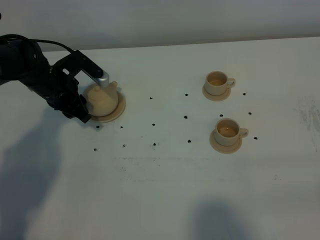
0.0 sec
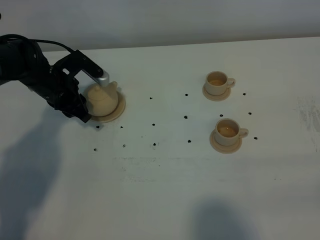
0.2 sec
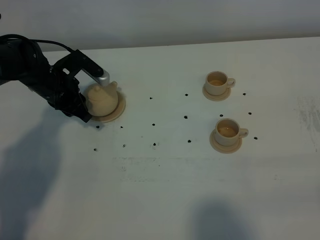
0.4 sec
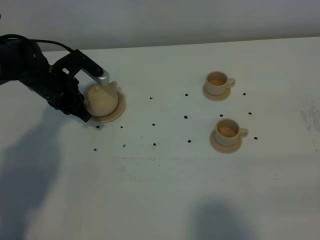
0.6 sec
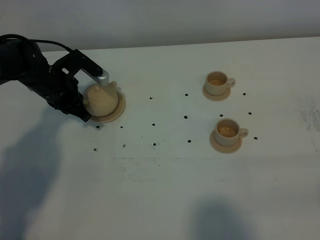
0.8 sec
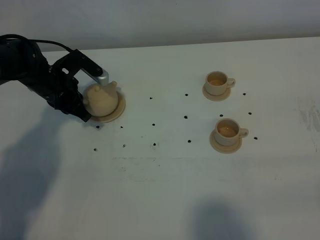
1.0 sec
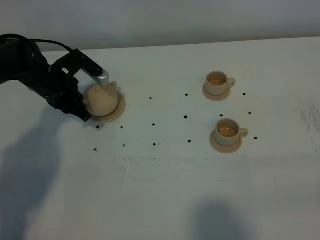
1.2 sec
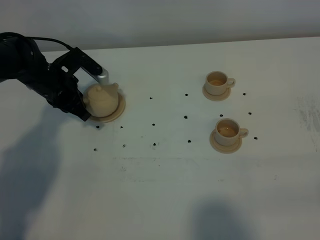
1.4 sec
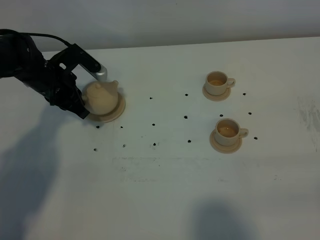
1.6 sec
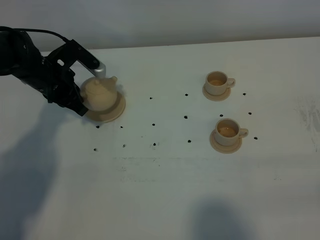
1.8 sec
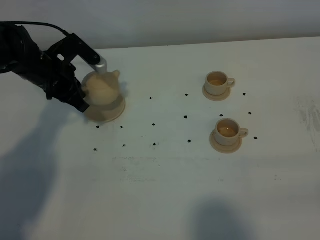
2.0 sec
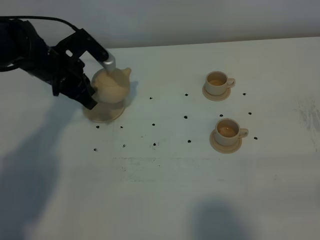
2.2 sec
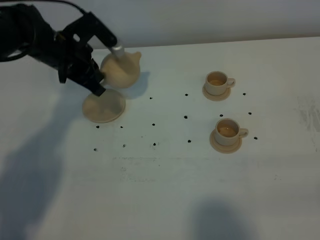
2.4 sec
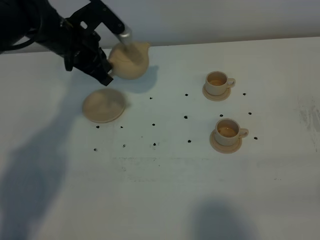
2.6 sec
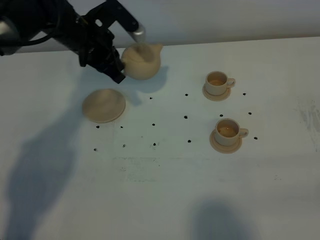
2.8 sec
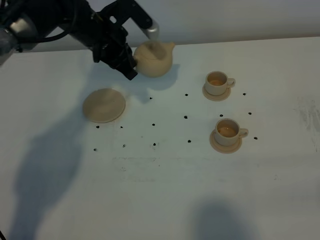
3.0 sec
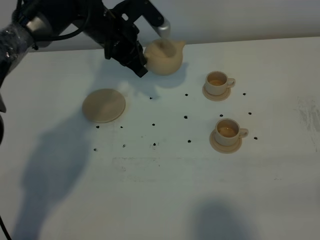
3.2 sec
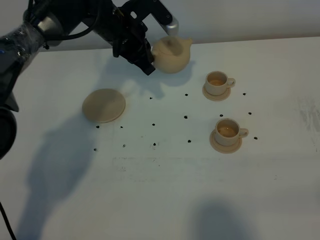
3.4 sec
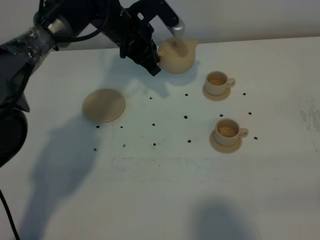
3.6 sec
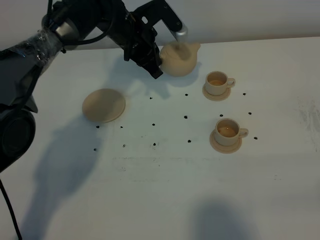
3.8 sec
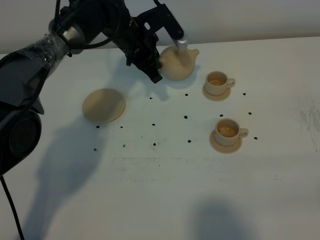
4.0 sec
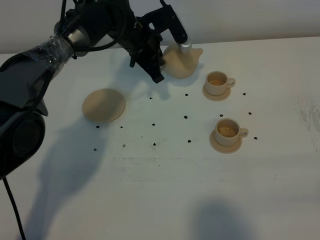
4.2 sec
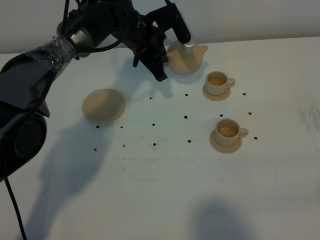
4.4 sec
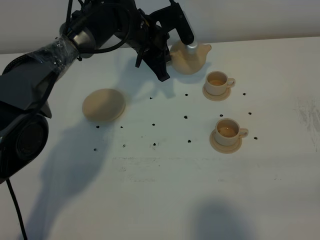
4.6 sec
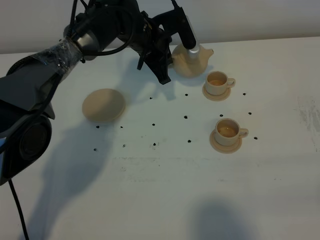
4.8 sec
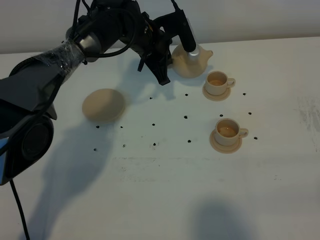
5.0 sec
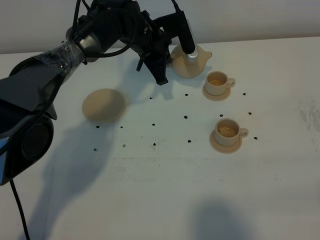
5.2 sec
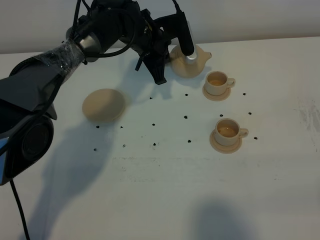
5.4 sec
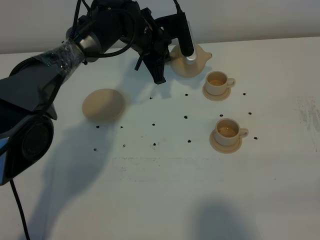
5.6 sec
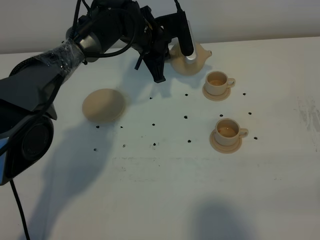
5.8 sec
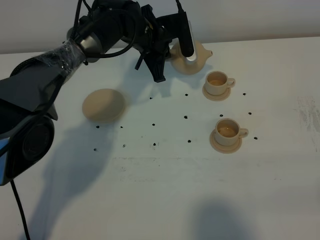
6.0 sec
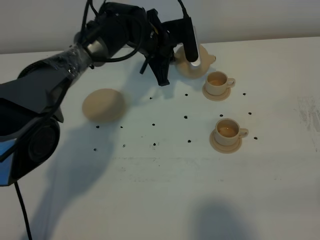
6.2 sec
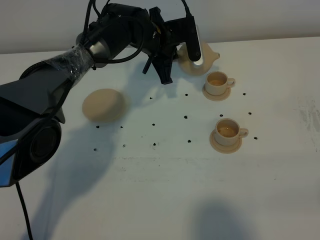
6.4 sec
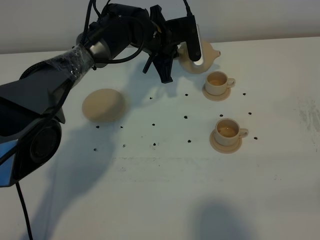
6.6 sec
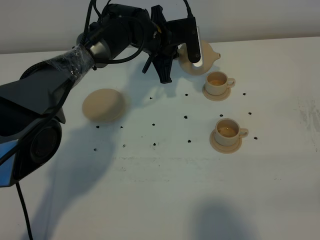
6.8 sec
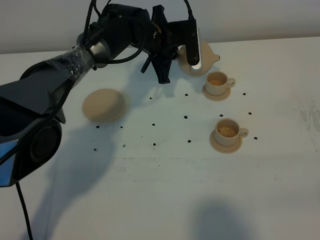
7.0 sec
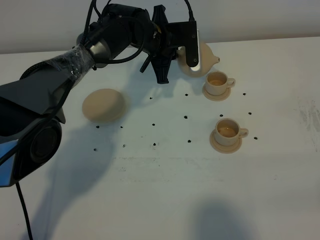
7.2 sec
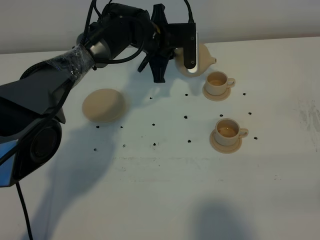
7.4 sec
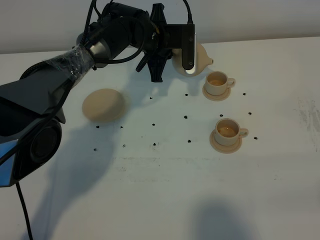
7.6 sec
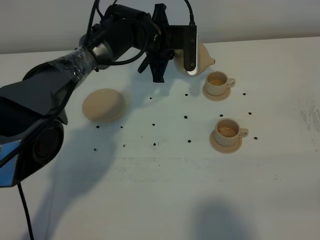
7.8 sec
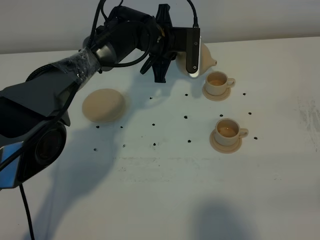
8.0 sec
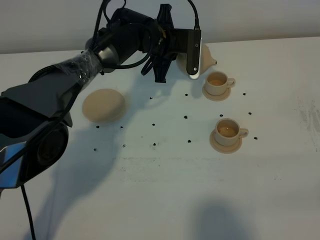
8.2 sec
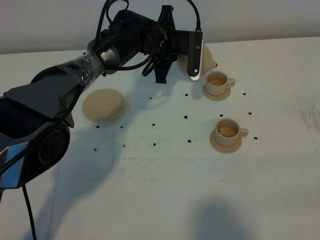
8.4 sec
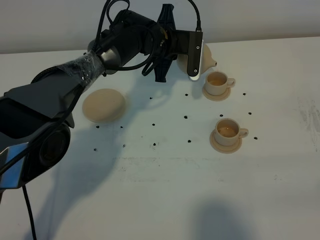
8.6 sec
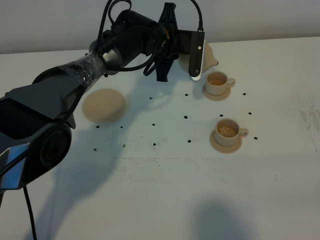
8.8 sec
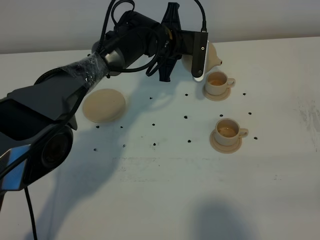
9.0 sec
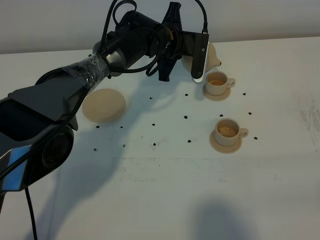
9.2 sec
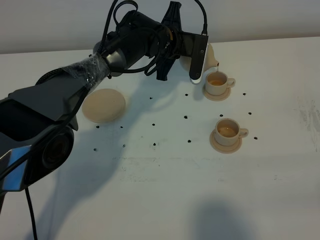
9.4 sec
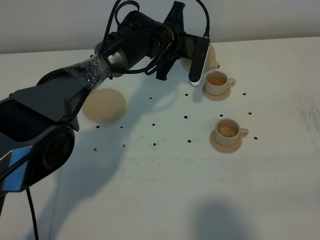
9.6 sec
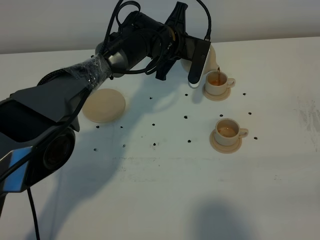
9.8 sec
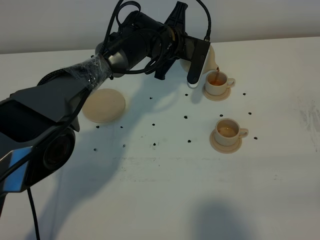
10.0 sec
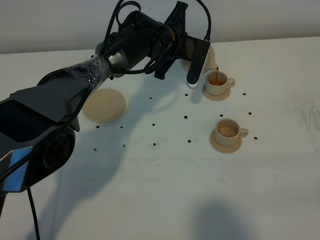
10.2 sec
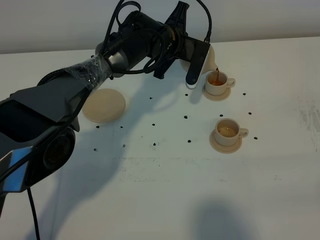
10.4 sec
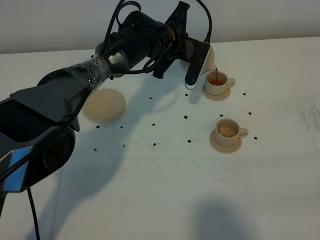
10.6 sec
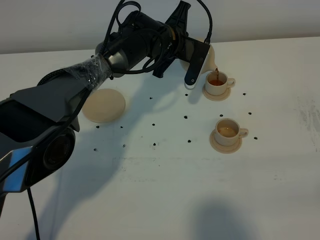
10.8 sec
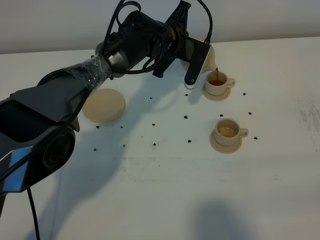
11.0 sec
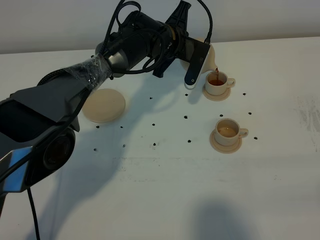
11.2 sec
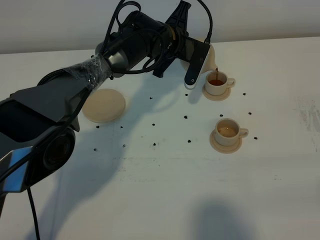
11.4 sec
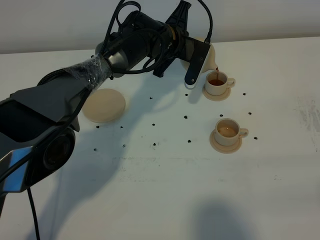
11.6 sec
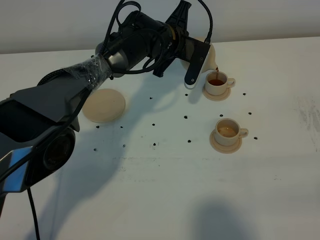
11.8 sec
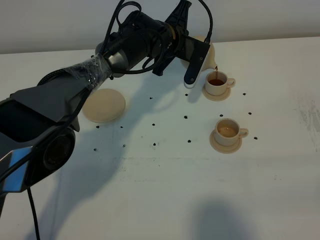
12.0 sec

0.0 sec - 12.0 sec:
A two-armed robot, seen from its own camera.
Task of the whole recording: grasp the brown teapot and pour the tea into the two brown teacups one by one, put the brown teapot back in its original place.
0.0 sec - 1.6 sec: The left gripper closes up.
1.6 sec - 3.0 sec: The left gripper moves to the right and upward, roughly 15 cm.
3.0 sec - 4.4 sec: The left gripper heads to the right, covering about 5 cm.
4.4 sec - 6.0 sec: There are only small adjustments of the grippers.
6.0 sec - 7.6 sec: The grippers make only small movements.
7.6 sec - 9.0 sec: The grippers stay close to where they were, moving slightly.
9.0 sec - 10.4 sec: The grippers move only a little.
10.4 sec - 12.0 sec: Both grippers stay put.

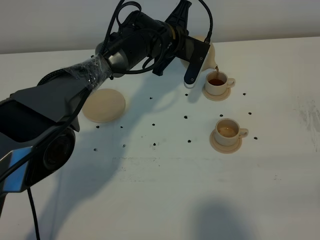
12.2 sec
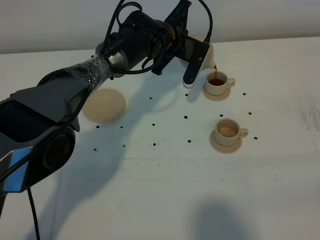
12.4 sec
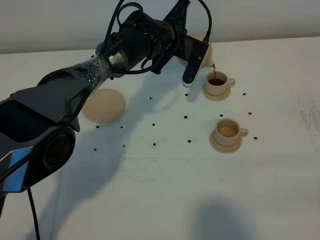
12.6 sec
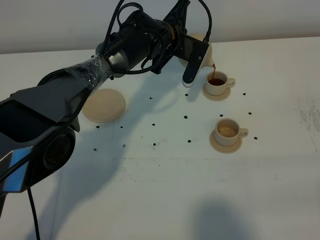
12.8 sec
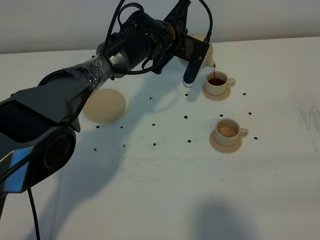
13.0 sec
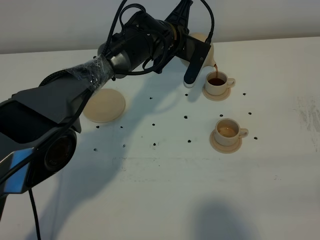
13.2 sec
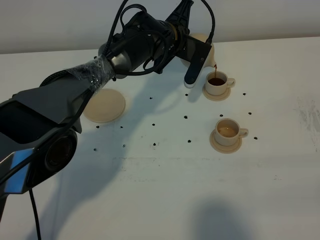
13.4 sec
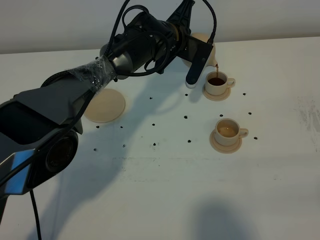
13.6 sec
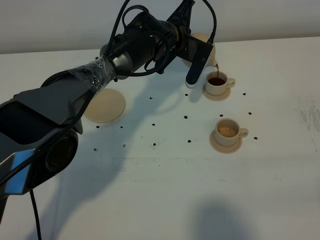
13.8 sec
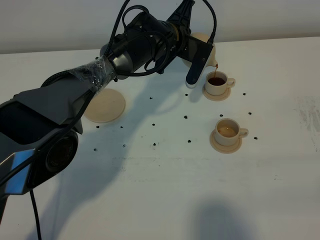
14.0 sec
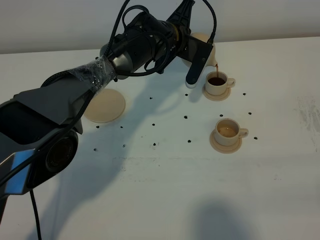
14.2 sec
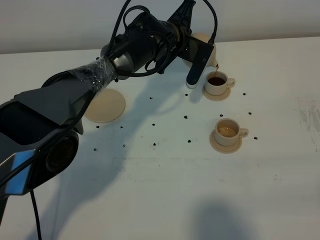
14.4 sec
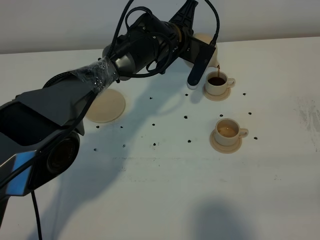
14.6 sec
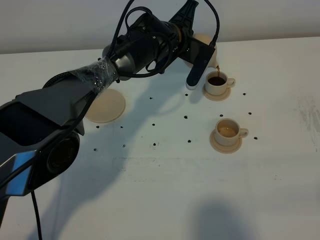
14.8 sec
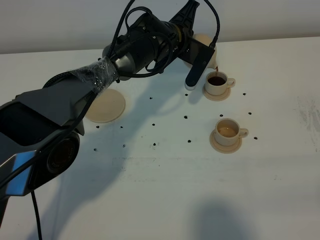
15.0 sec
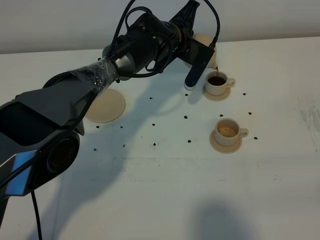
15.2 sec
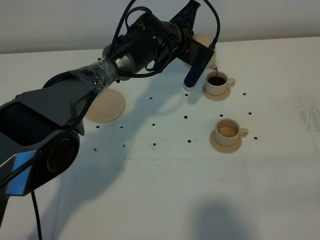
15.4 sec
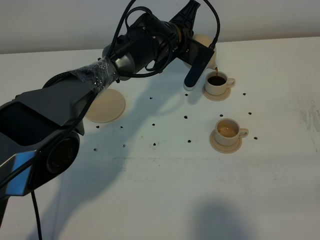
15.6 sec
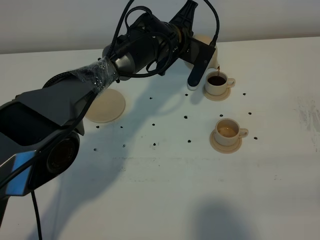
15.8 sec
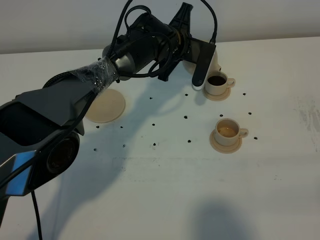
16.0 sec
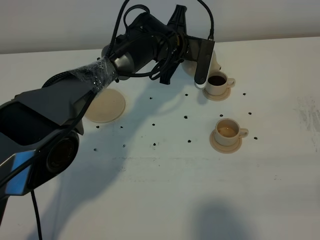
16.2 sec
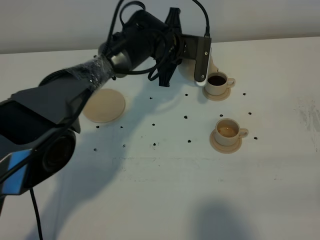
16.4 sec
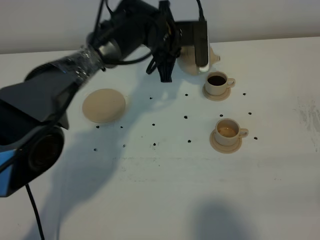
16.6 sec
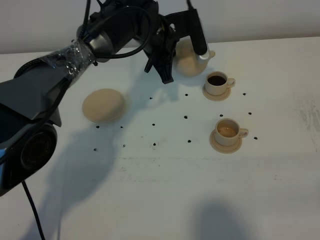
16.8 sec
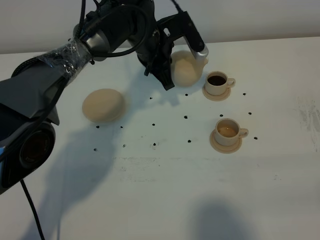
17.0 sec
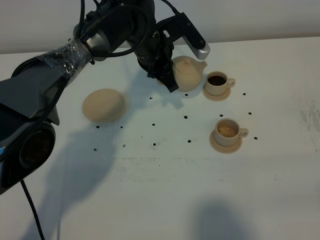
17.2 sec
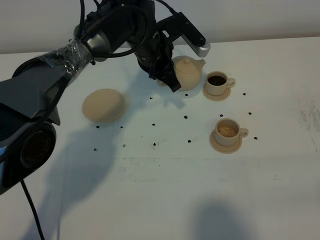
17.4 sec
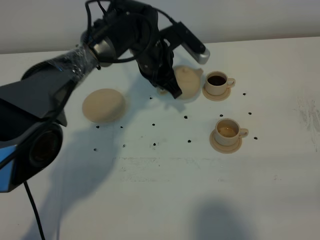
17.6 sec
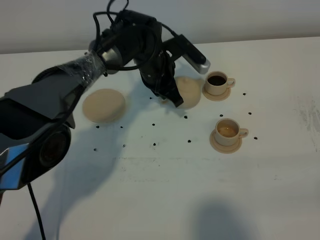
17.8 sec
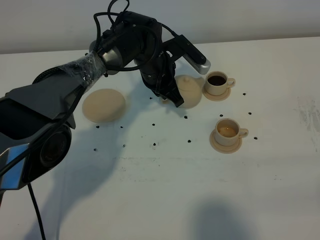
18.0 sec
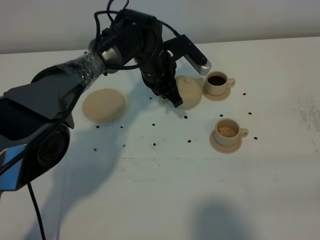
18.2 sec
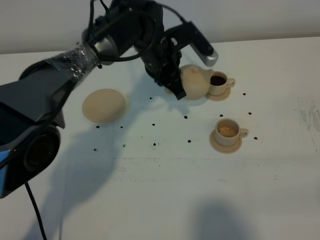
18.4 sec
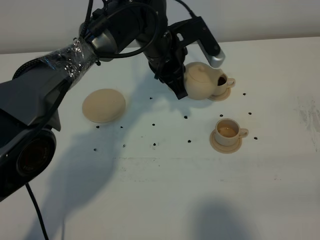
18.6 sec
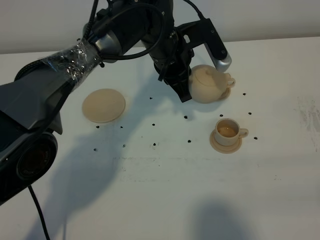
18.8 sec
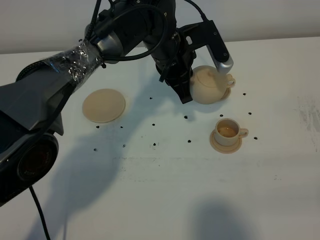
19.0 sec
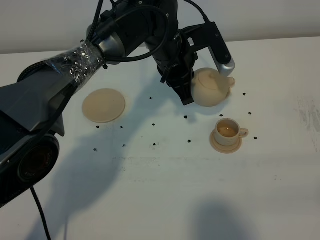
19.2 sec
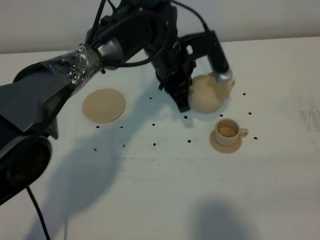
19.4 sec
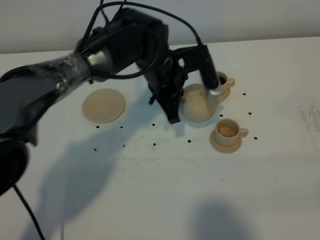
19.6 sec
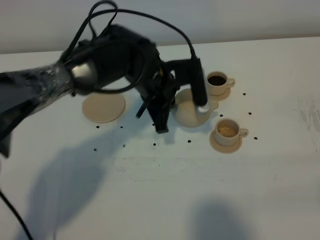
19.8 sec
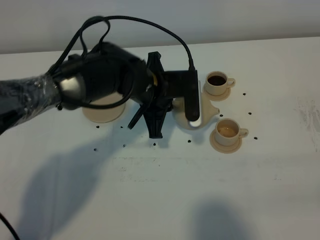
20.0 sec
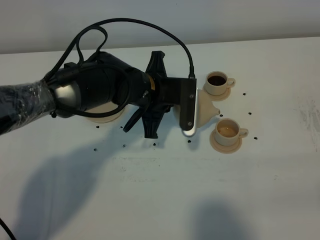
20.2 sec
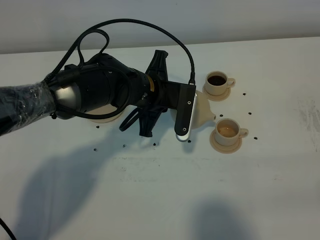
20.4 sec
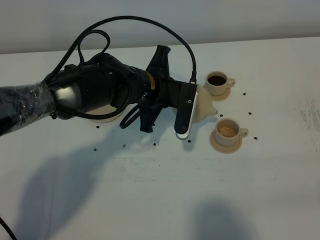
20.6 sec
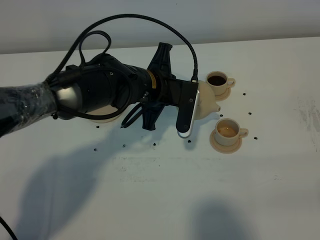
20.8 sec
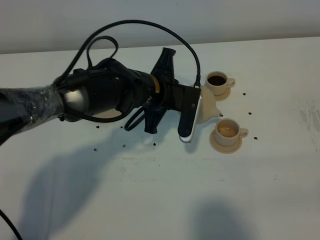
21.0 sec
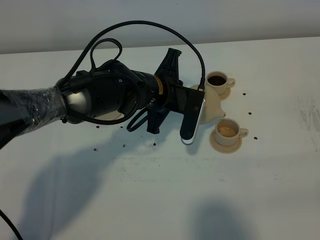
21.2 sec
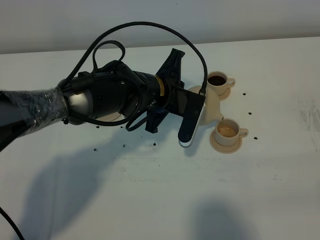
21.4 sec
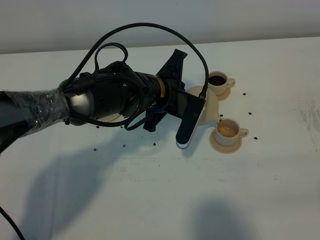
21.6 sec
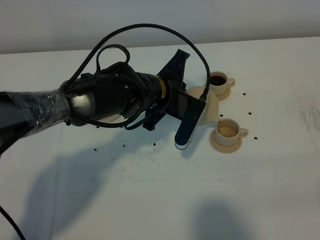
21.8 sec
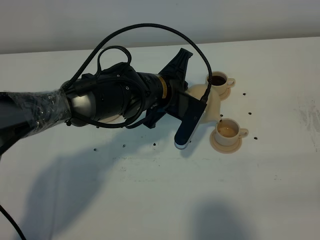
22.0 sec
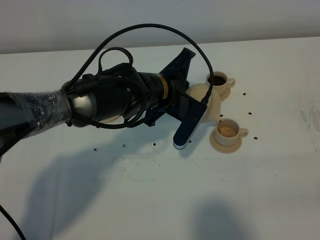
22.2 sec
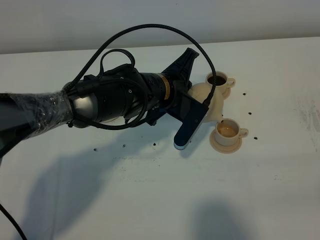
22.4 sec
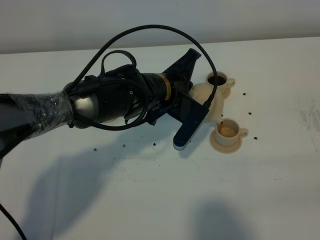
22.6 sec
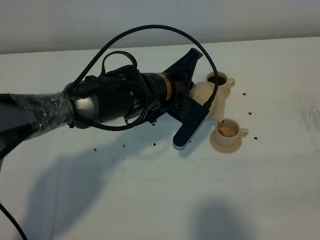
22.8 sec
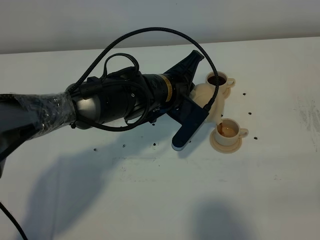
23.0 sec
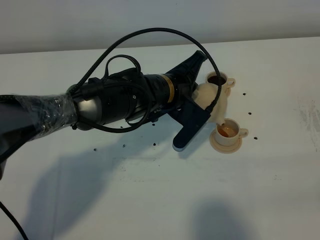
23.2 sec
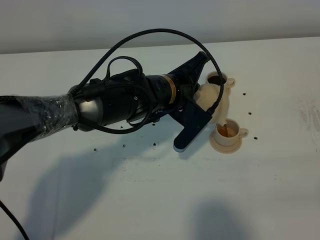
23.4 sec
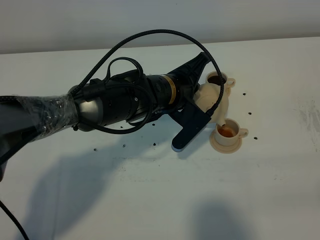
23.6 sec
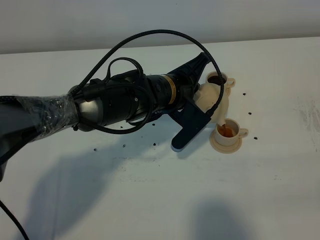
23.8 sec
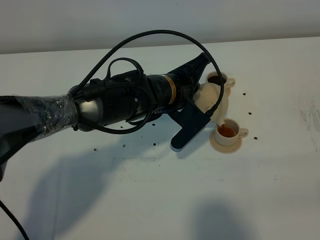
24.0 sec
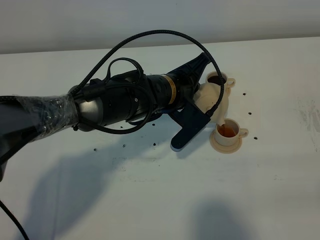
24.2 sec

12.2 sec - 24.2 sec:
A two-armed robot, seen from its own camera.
Task of the whole recording: grasp the brown teapot and pour the tea into the two brown teacups one by one, put the brown teapot back in its original place.
12.2 sec - 13.8 sec: Both grippers stay about where they are.
13.8 sec - 15.2 sec: The grippers stay close to where they were, moving slightly.
18.2 sec - 19.8 sec: The left gripper goes about 10 cm backward.
22.6 sec - 24.2 sec: The grippers make only small movements.
